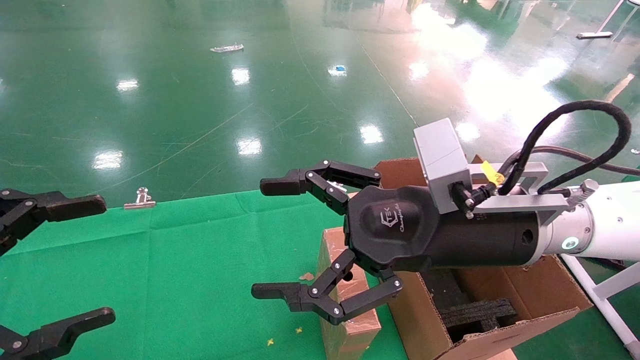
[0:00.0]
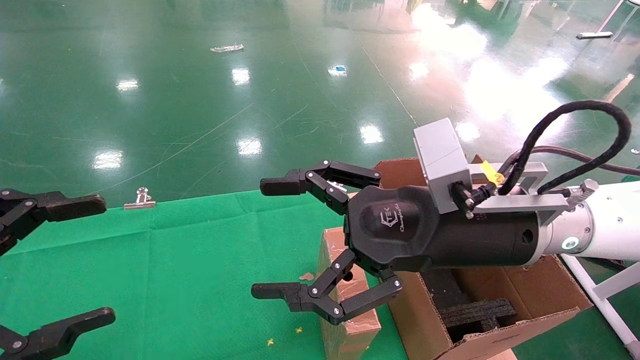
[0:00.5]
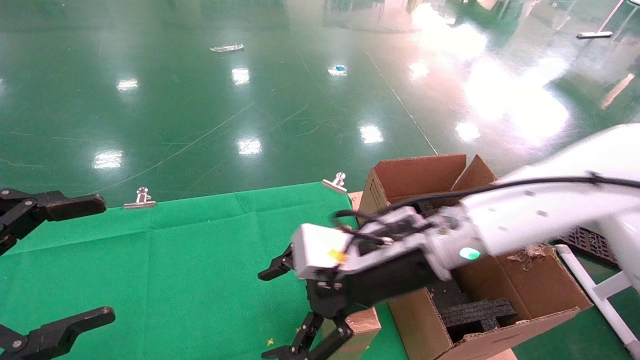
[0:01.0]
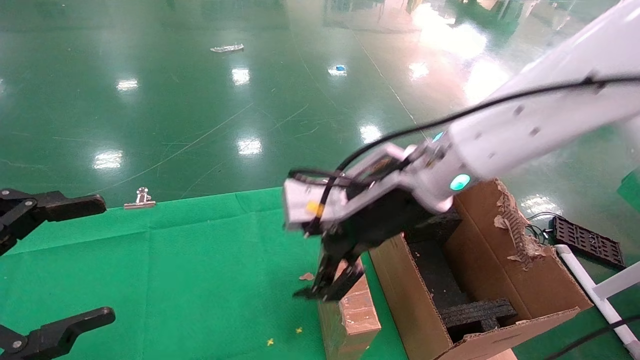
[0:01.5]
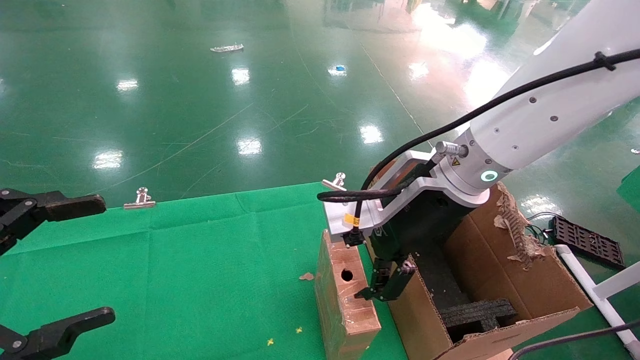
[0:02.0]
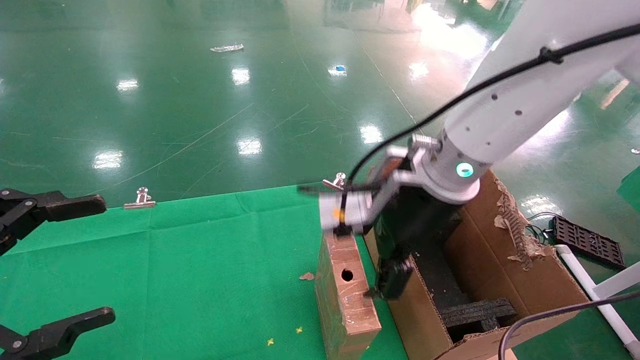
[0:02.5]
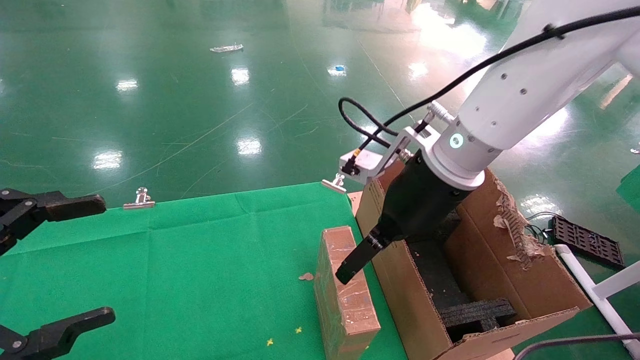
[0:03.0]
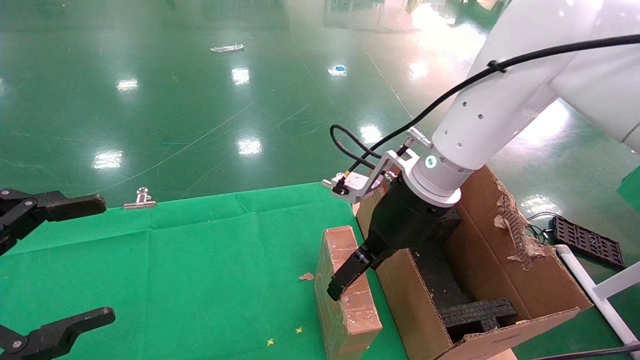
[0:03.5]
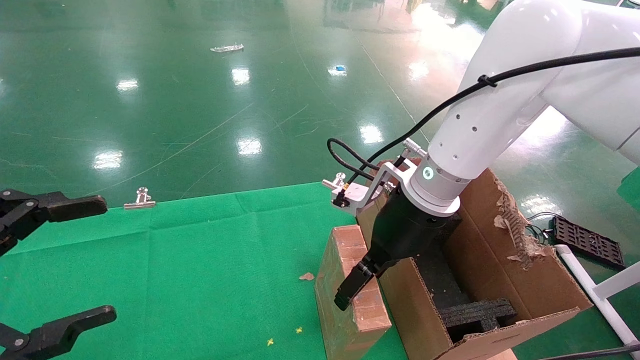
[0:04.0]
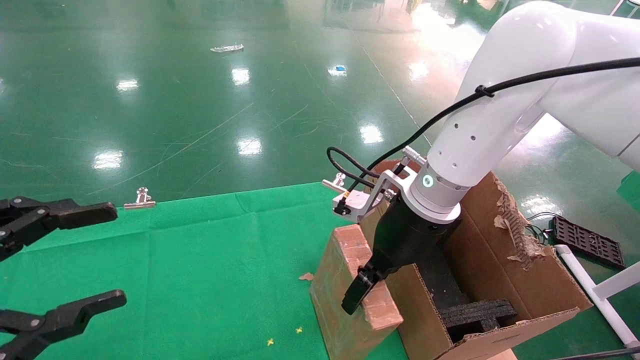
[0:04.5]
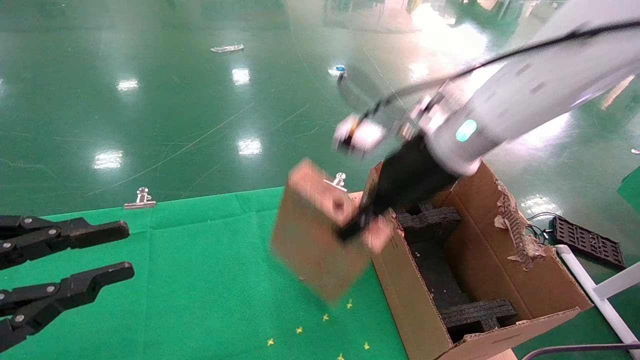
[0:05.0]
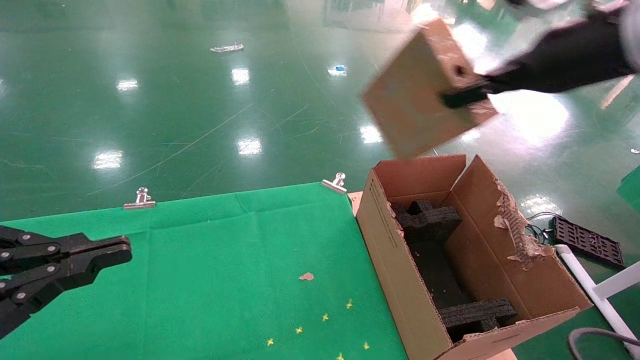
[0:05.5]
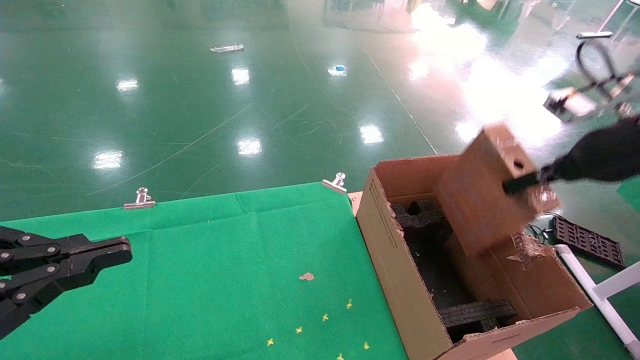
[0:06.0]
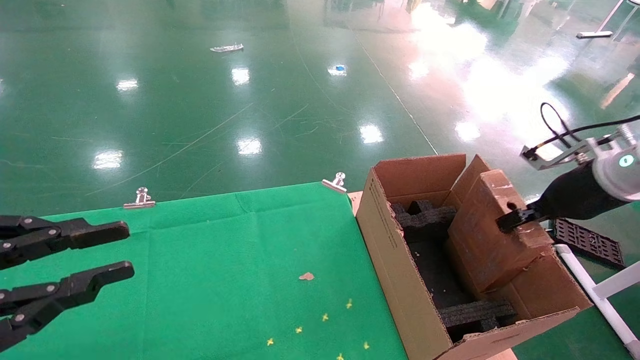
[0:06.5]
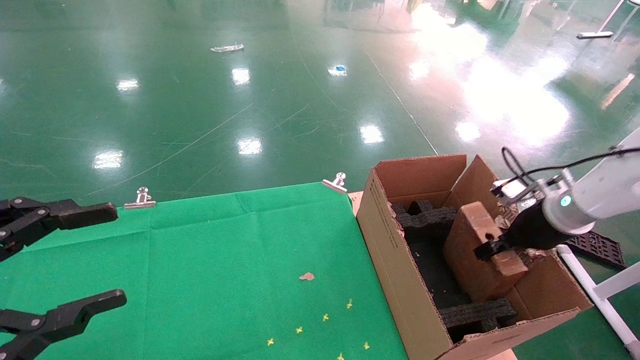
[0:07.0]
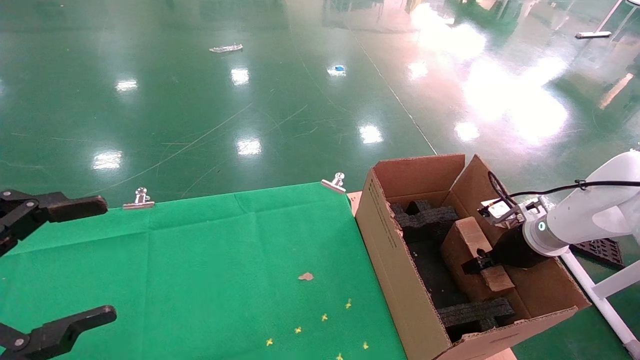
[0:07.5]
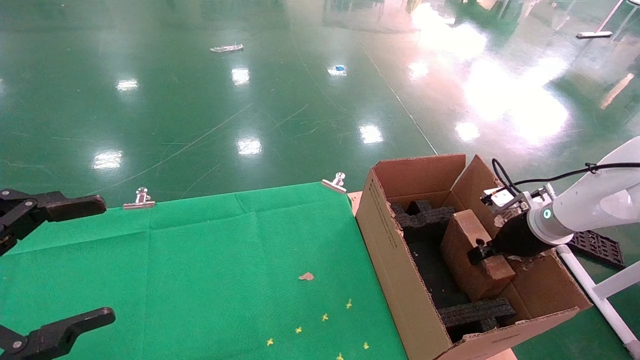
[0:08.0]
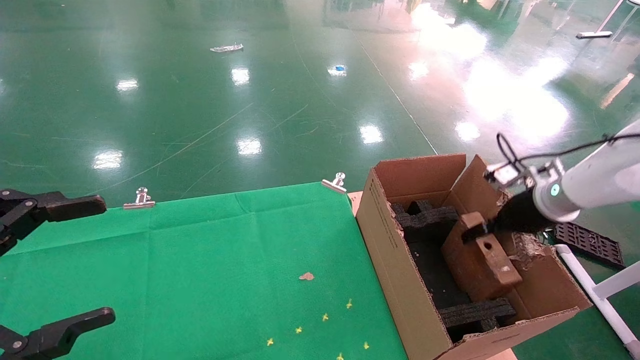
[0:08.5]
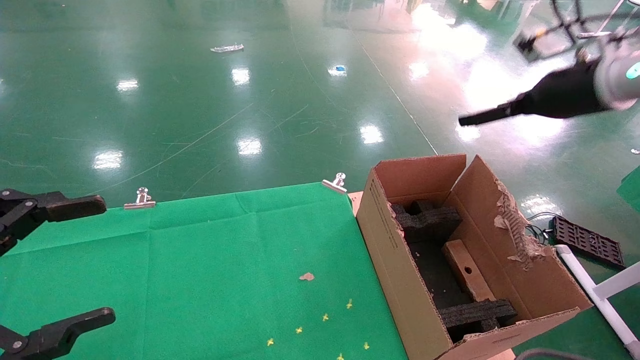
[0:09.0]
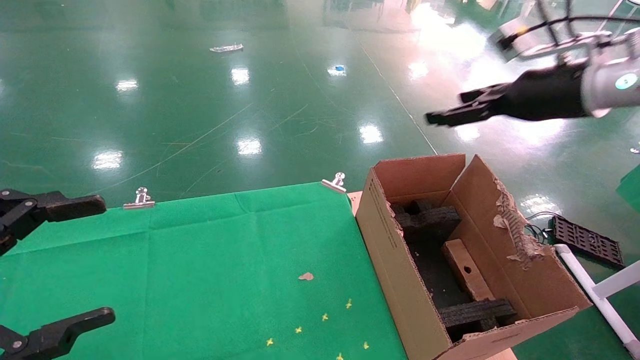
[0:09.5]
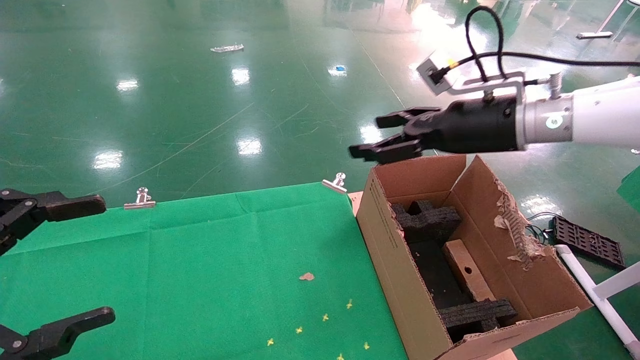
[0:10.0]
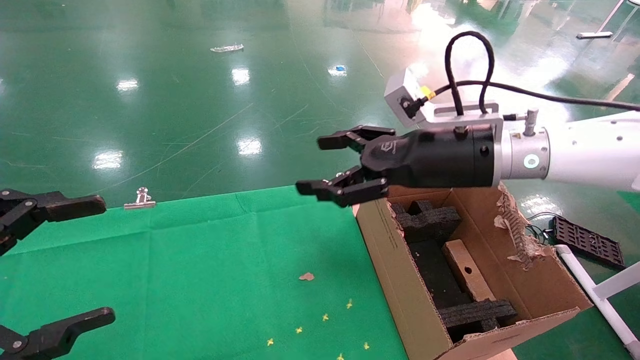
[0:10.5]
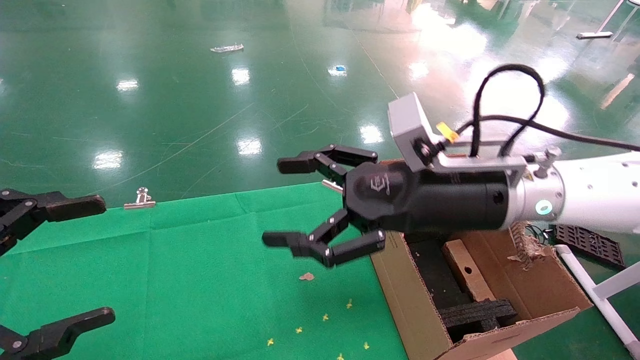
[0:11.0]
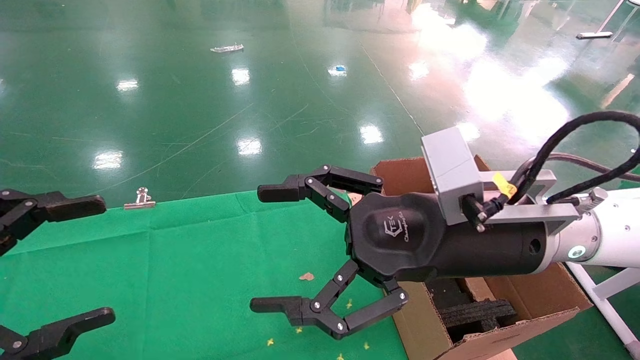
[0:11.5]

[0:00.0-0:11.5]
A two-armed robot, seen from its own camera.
Task of the whole recording: using a robotic arm to pick up a cardboard box and palace it the carton.
Step, 0:01.0 to 0:05.0: Pick up the mouse and the power cord paper box.
Step, 0:05.5 to 0:09.5: Place the mouse and the power cord paper box into the container.
0:00.0 to 0:02.0: The right gripper is displaced forward by roughly 5 cm.
0:02.0 to 0:04.0: The right gripper ends up roughly 5 cm from where it was.
0:04.0 to 0:06.0: The left gripper closes its fingers, while the right gripper travels to the right by approximately 25 cm, and closes.
0:06.0 to 0:07.5: The right gripper travels downward and forward by approximately 20 cm; the left gripper opens.
0:07.5 to 0:09.5: The right gripper moves upward, roughly 25 cm, and opens its fingers.
0:09.5 to 0:11.5: The right gripper goes roughly 25 cm to the left, backward and downward.

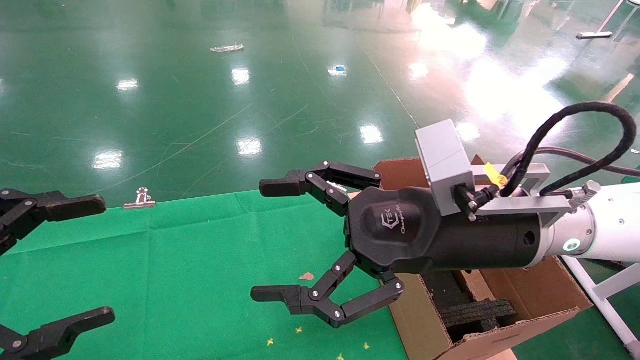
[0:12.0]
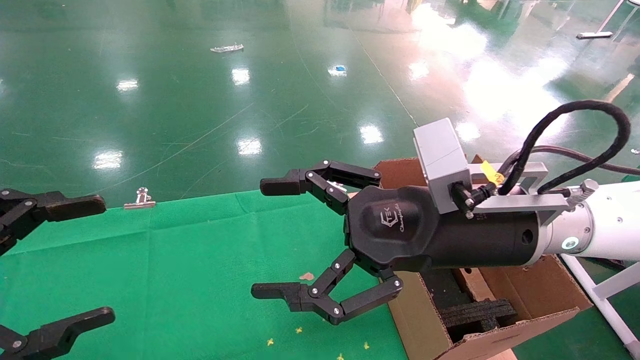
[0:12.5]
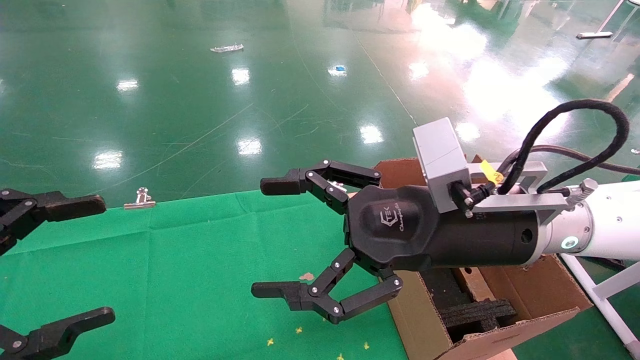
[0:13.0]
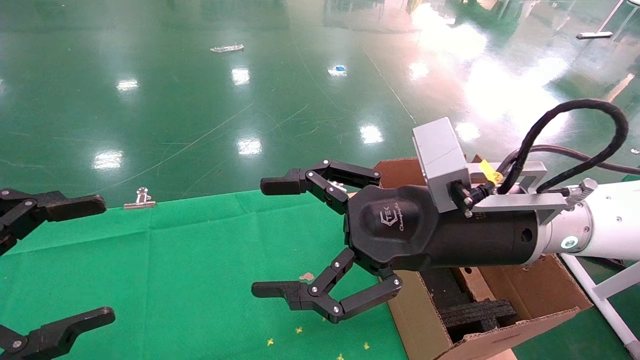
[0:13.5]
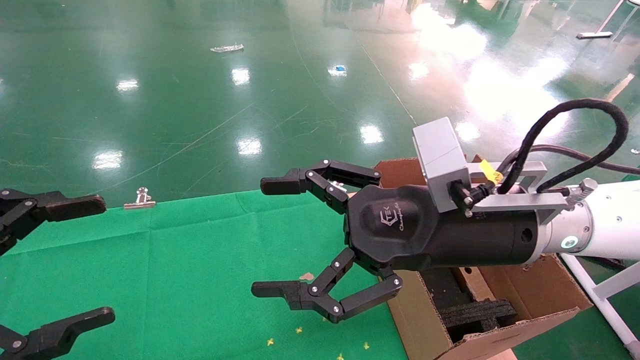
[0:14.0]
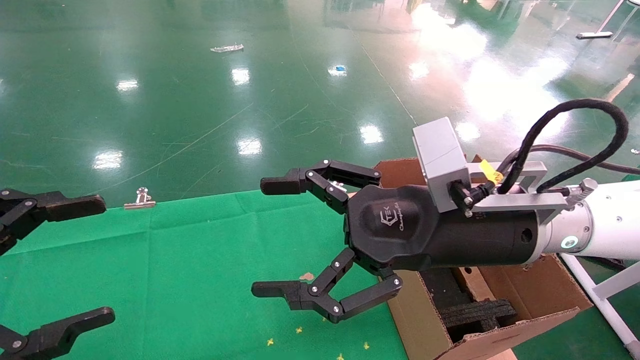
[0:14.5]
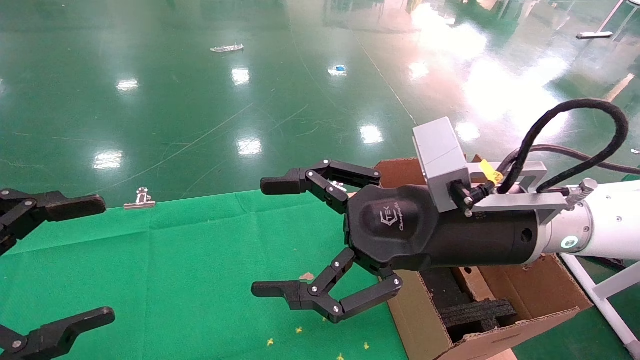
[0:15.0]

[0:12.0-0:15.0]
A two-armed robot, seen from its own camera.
Task of the whole recording: using a robotic arm to pick up a cardboard box and palace it the carton.
0:12.0 to 0:15.0: The two grippers keep their place.
